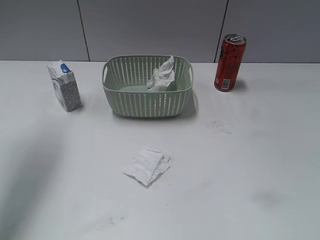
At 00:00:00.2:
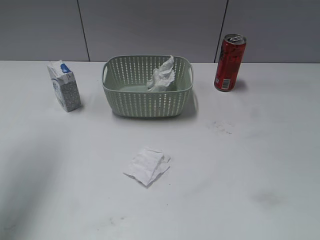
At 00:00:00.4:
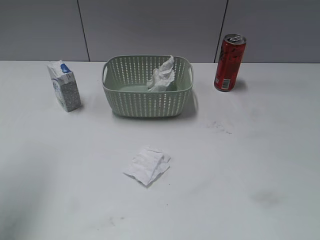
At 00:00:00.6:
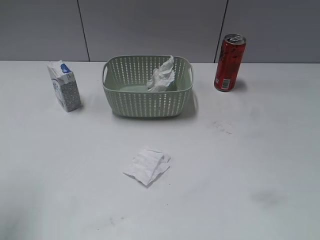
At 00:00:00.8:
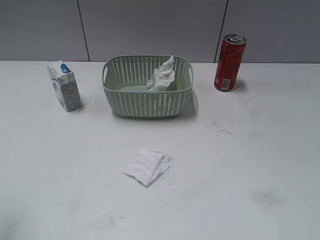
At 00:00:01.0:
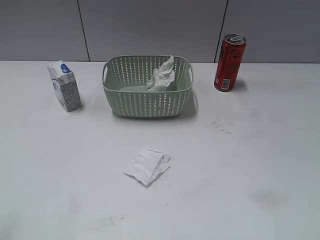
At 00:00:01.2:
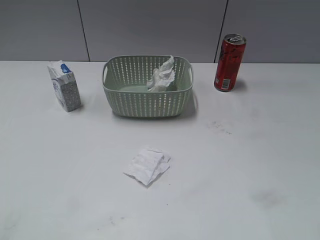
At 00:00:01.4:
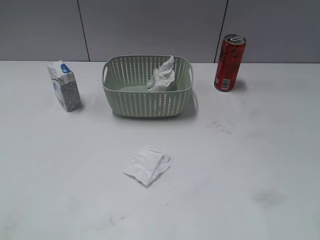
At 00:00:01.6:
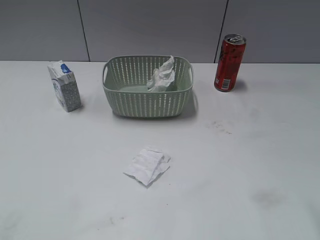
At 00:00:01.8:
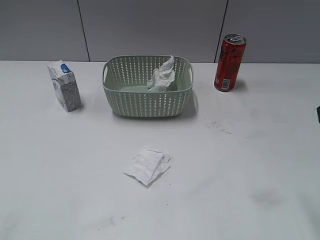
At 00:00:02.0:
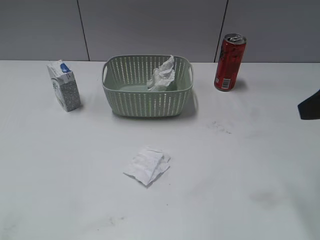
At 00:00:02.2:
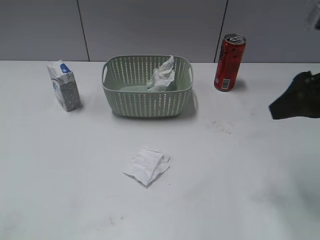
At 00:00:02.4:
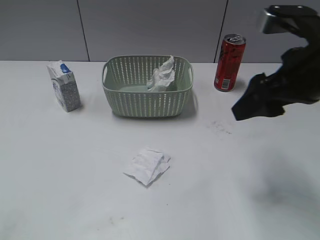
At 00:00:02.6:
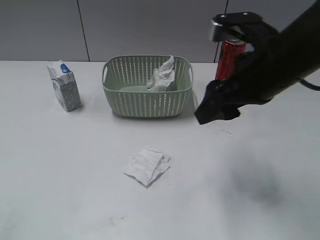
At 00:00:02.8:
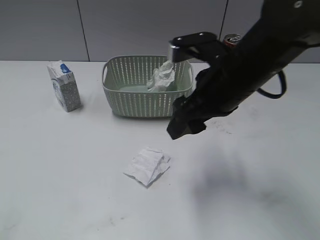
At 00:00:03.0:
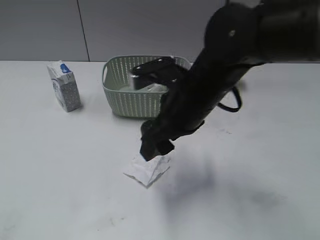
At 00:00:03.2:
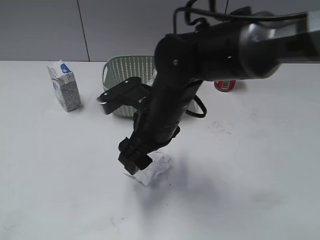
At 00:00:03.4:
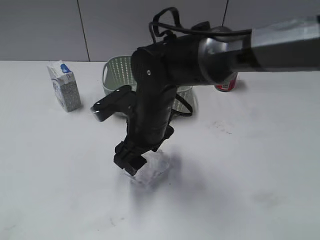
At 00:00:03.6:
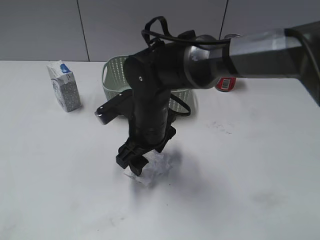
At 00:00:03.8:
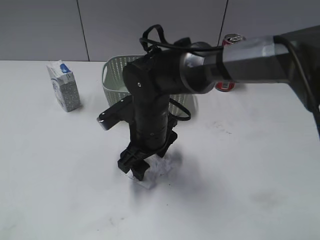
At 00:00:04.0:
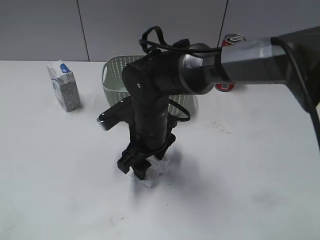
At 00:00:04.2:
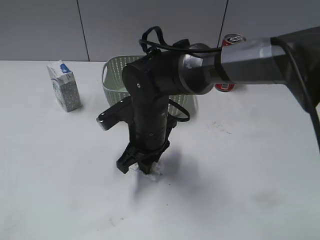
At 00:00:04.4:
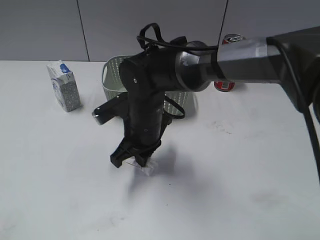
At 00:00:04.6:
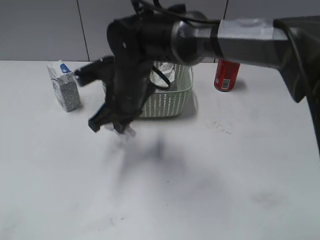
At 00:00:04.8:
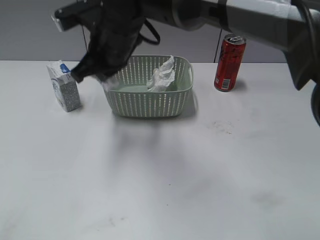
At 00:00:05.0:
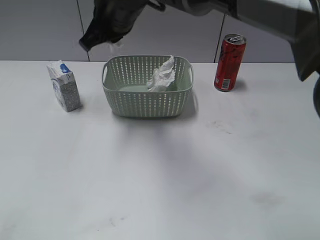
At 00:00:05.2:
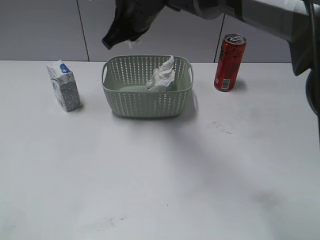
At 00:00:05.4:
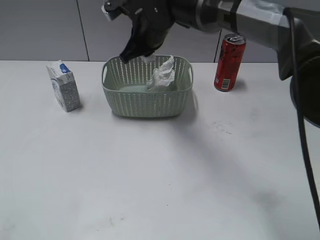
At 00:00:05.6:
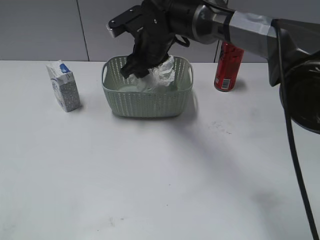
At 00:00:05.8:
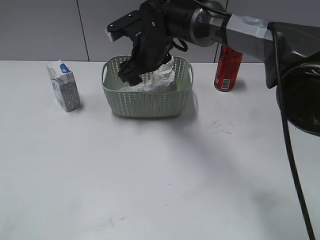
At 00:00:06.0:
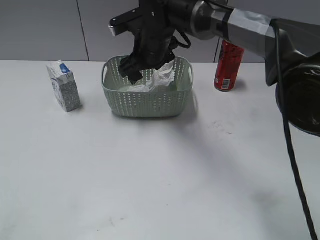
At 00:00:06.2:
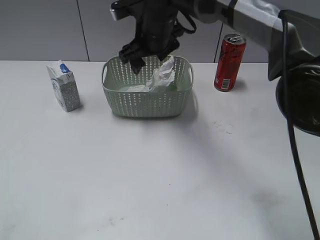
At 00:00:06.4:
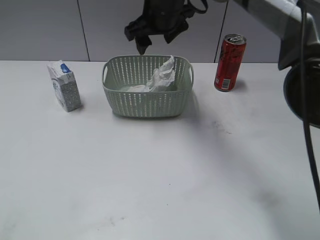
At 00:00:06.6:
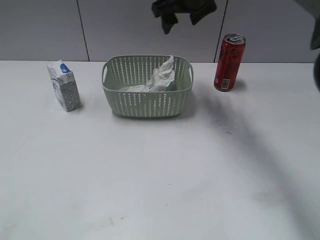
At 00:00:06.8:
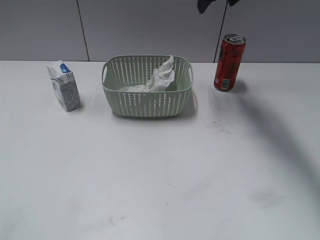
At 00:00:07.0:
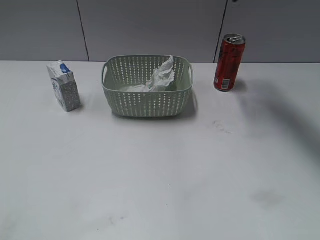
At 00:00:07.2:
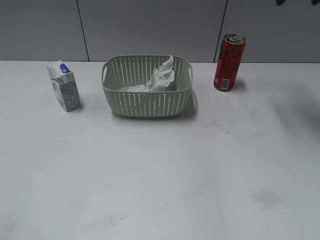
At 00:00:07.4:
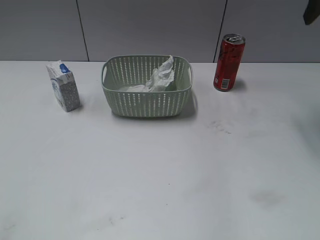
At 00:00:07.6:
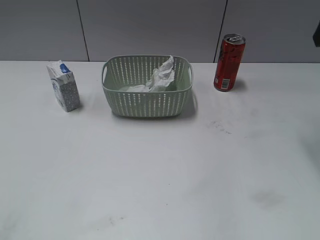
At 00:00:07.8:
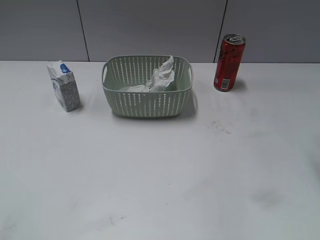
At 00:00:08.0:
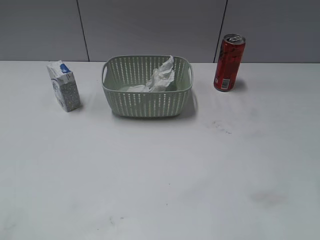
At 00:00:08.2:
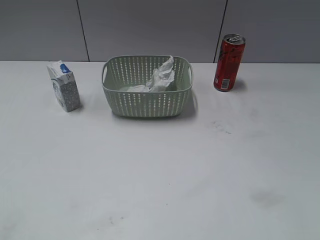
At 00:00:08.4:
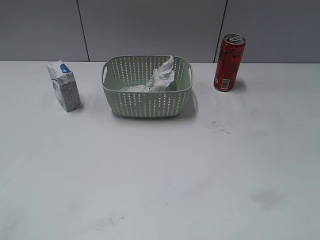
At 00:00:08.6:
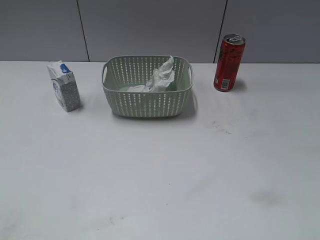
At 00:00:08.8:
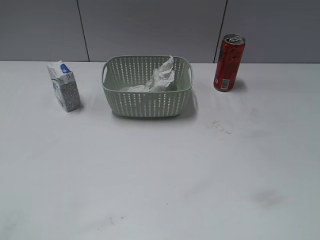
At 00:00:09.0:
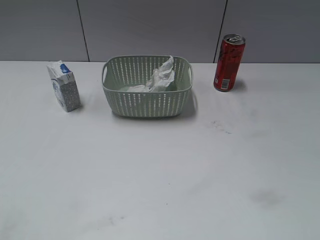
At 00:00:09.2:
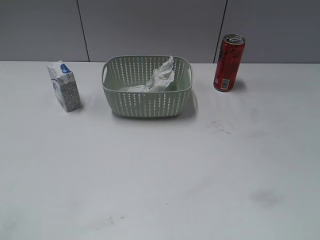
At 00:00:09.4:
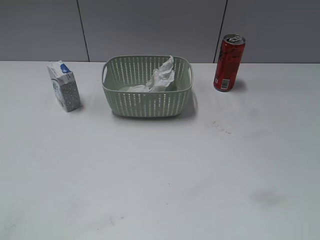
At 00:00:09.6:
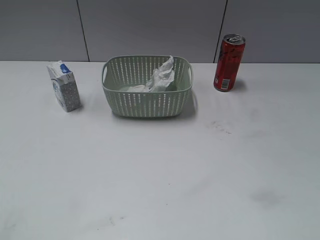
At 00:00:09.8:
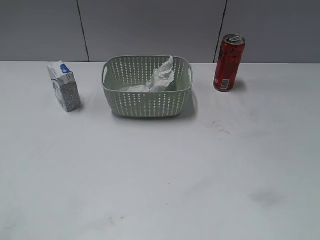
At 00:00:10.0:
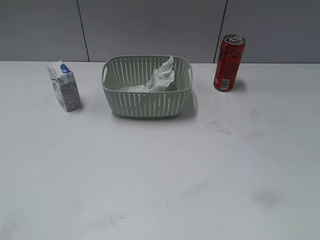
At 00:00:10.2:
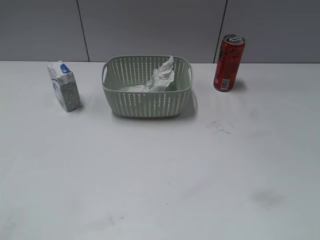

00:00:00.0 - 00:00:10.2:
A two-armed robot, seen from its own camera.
Step, 00:00:00.0 - 00:00:04.4: Grasp the waste paper with right gripper.
Step, 00:00:04.6 - 00:00:06.0: Place the waste paper in the basket with right gripper.
00:00:00.0 - 00:00:01.4: The left gripper heads backward, covering roughly 30 cm.
00:00:01.4 - 00:00:03.0: The right gripper is displaced to the left, forward and downward by roughly 30 cm.
00:00:03.0 - 00:00:04.4: The right gripper shifts some 15 cm downward and to the left, and closes up.
00:00:04.4 - 00:00:05.8: The right gripper travels forward and upward by approximately 15 cm, and opens.
00:00:05.8 - 00:00:07.2: The right gripper moves to the right and upward, some 35 cm.
00:00:07.2 - 00:00:08.8: The right gripper shifts approximately 35 cm backward.

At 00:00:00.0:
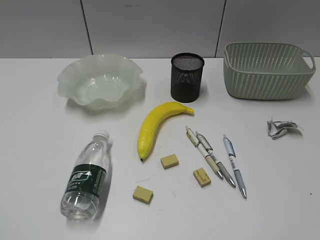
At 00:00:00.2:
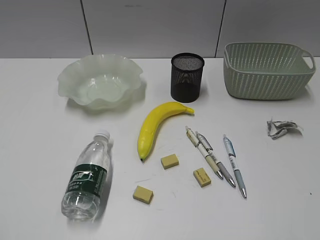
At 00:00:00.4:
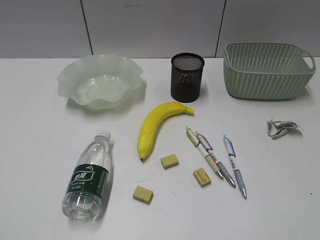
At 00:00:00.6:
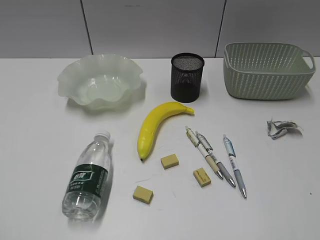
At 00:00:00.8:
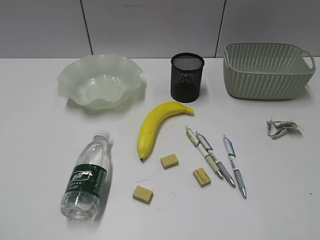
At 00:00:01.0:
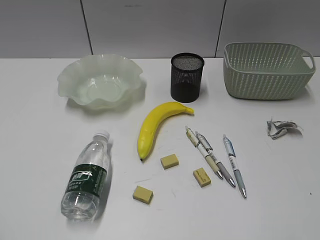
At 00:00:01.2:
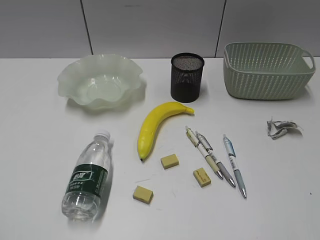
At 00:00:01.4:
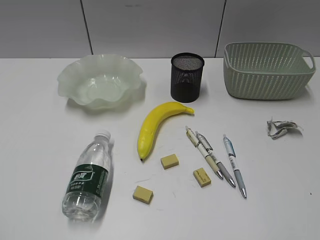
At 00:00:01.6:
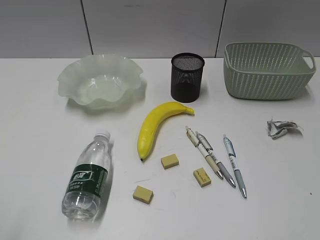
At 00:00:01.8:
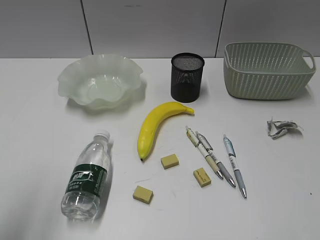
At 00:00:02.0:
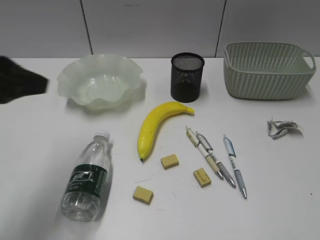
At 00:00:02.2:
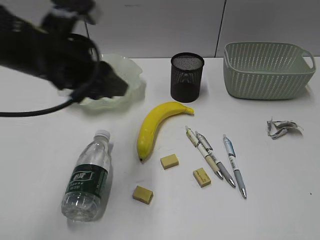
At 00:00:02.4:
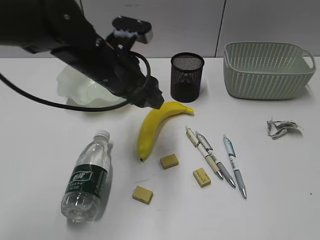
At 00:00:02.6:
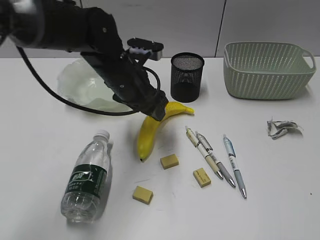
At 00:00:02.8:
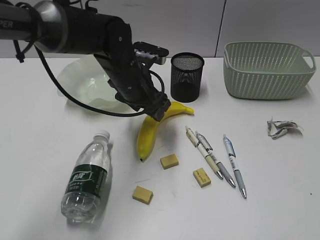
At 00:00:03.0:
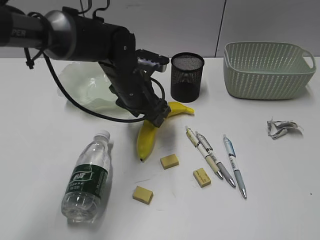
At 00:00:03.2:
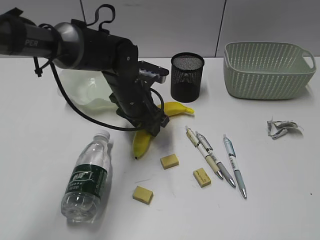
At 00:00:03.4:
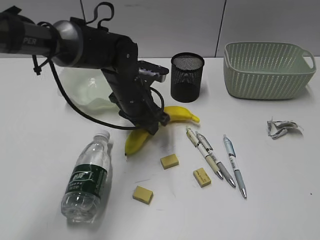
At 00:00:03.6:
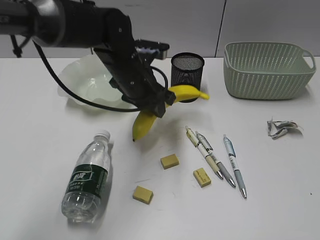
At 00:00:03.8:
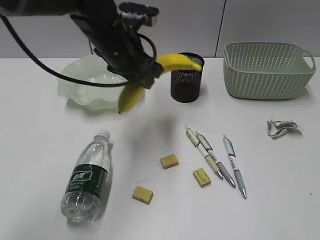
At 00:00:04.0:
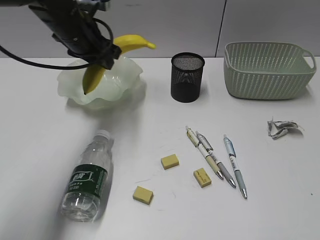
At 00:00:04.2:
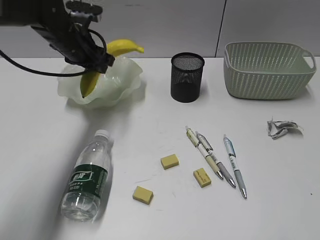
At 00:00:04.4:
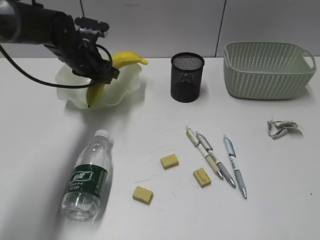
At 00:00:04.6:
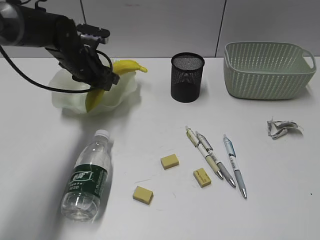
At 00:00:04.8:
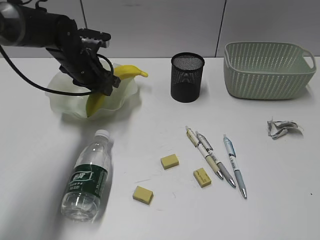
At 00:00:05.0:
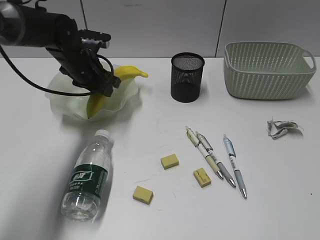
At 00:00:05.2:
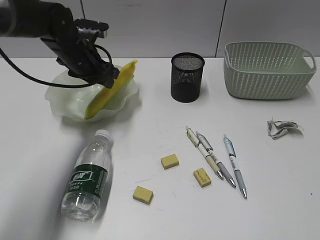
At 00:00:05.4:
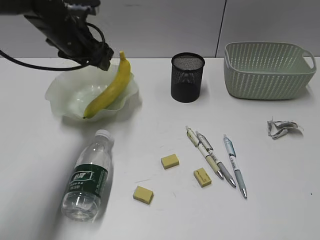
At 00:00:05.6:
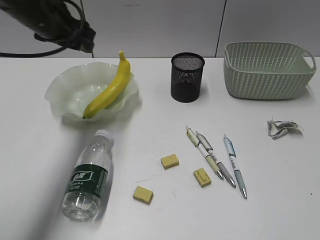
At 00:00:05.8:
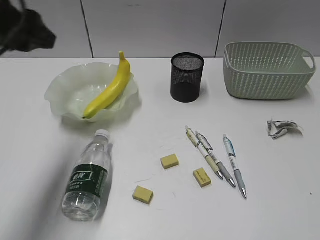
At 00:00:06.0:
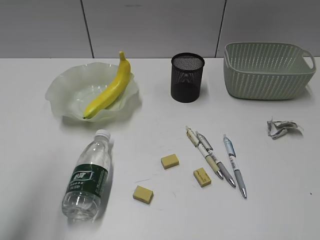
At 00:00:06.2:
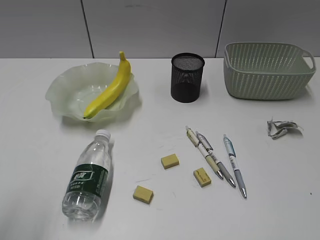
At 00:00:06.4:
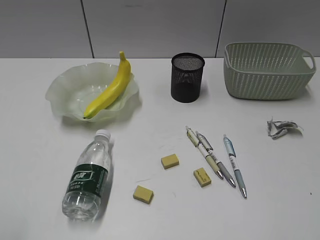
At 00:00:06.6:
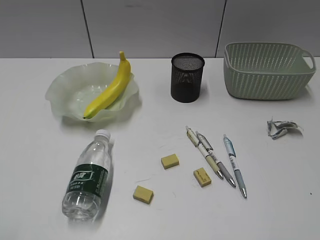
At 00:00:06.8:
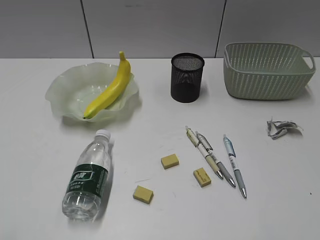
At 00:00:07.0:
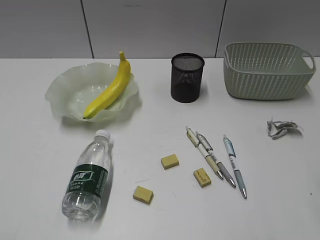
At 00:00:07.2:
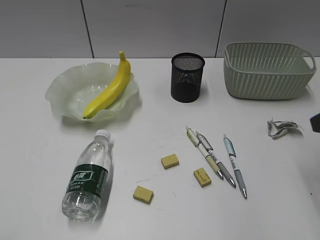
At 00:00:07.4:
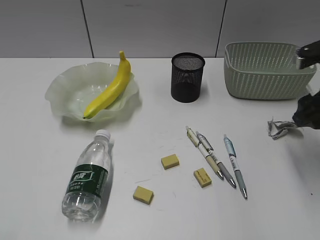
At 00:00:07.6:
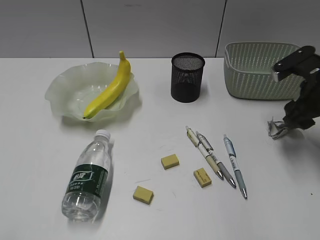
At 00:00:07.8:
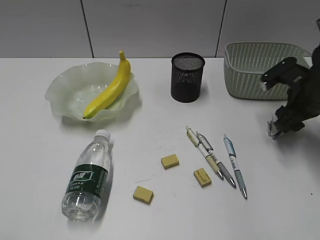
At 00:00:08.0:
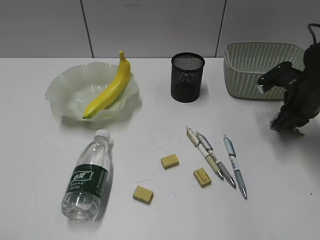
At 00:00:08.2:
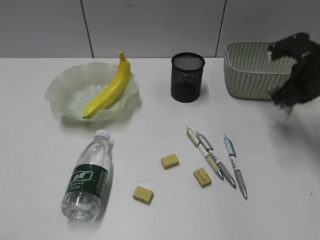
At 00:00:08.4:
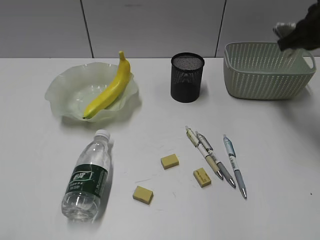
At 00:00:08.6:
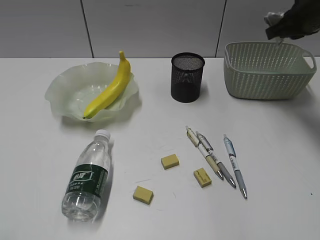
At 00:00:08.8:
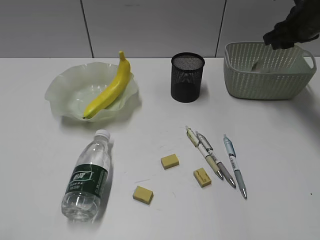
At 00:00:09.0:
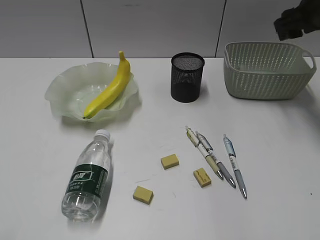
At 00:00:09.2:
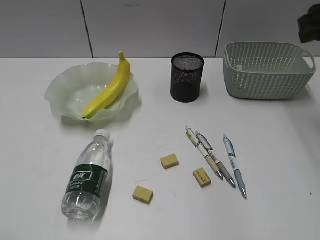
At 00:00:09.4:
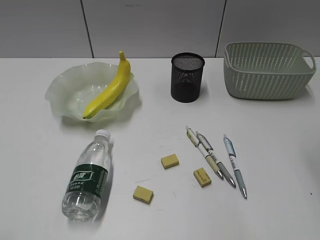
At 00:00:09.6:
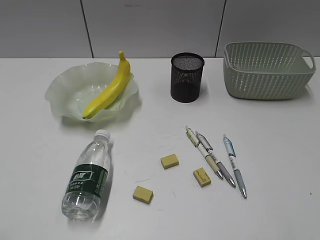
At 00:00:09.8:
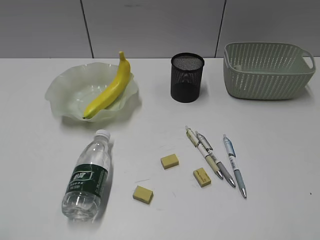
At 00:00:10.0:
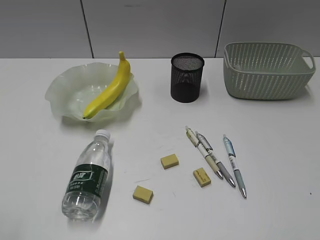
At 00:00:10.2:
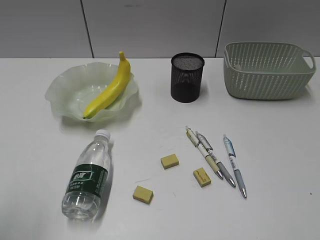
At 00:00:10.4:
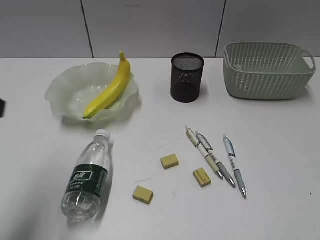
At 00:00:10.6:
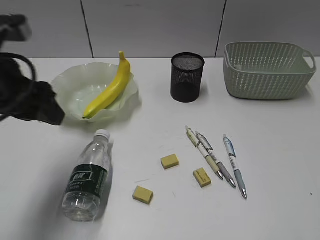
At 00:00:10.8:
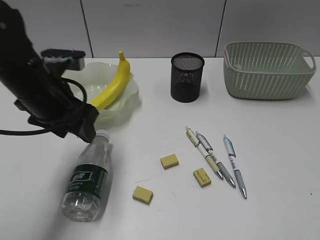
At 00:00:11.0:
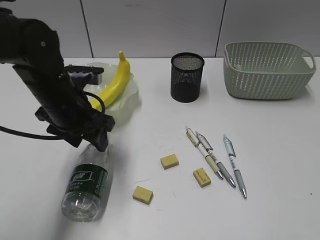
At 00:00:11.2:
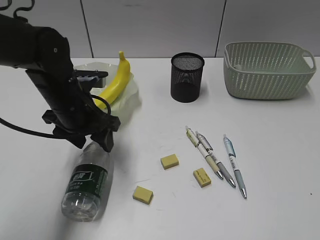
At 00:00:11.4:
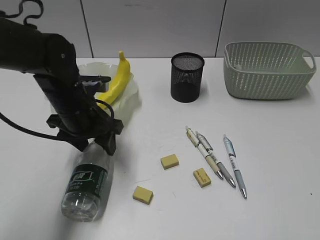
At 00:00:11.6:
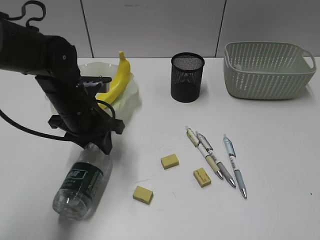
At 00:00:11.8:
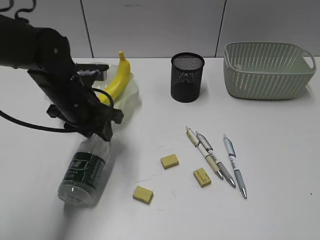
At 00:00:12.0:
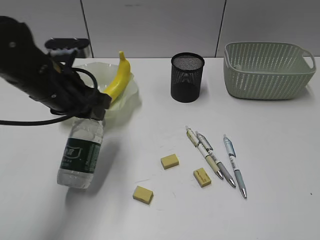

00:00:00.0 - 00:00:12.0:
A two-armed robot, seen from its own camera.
Step, 00:00:01.6 - 00:00:03.2: Grasp the banana with left gripper.
Step, 00:00:03.4 - 00:00:05.2: Place the banana in the plate with left gripper.
Step, 00:00:05.4 - 00:00:08.0: Grasp the waste paper with right gripper.
Step, 00:00:08.2 - 00:00:08.8: Place the waste paper in the basket with right gripper.
Step, 00:00:09.0 - 00:00:11.6: Grasp the bottle with left gripper.
00:00:01.6 - 00:00:03.0: The left gripper moves forward, to the right and downward, roughly 50 cm, and opens.
00:00:03.0 - 00:00:04.4: The left gripper heads to the left and forward, covering some 15 cm, and closes its fingers.
00:00:04.4 - 00:00:06.0: The left gripper travels backward and upward by approximately 30 cm.
00:00:06.0 - 00:00:07.6: The left gripper goes some 20 cm backward; the right gripper shifts approximately 35 cm forward, and opens.
00:00:07.6 - 00:00:09.0: The right gripper travels forward and upward by about 15 cm, and closes, then opens again.
00:00:09.0 - 00:00:10.4: The left gripper travels forward and to the right by approximately 15 cm; the right gripper is displaced backward by about 40 cm.
00:00:10.4 - 00:00:12.0: The left gripper is displaced forward, downward and to the right by some 20 cm, and closes its fingers. The right gripper closes up.
